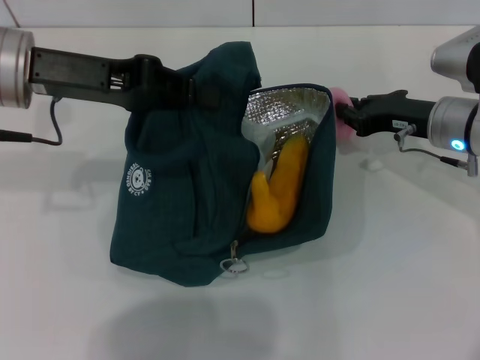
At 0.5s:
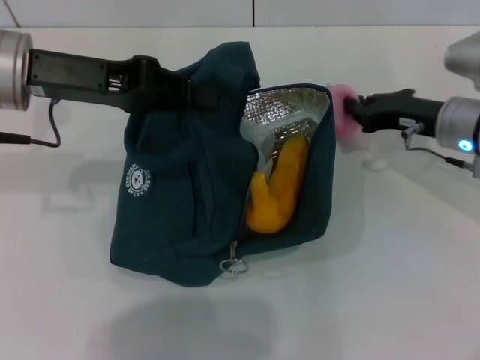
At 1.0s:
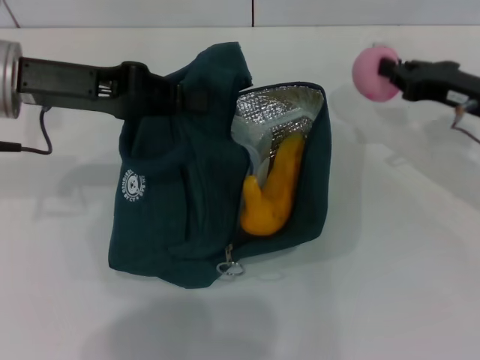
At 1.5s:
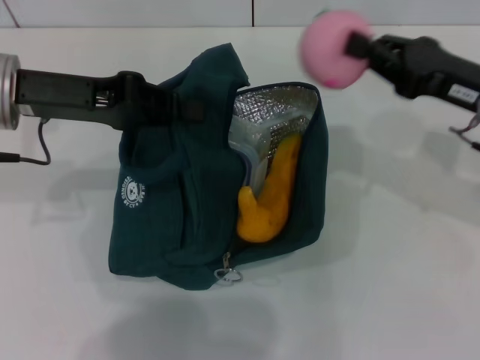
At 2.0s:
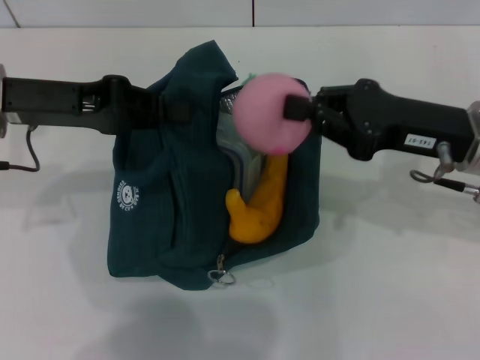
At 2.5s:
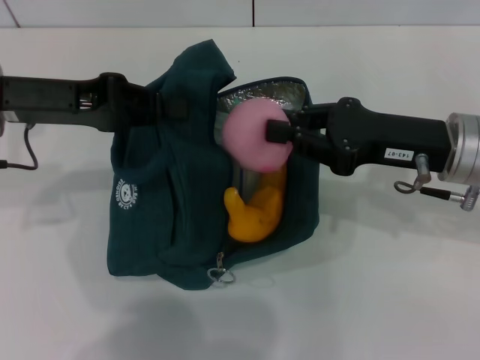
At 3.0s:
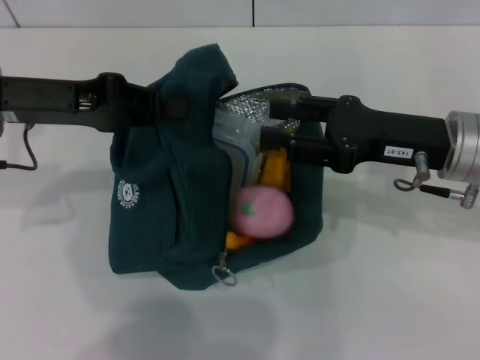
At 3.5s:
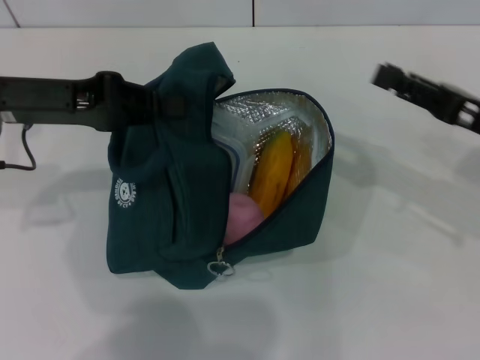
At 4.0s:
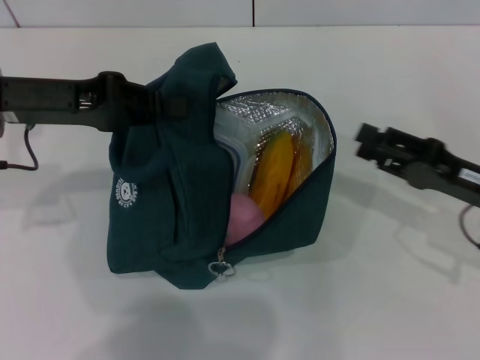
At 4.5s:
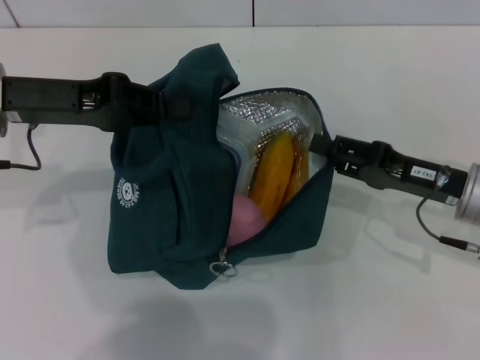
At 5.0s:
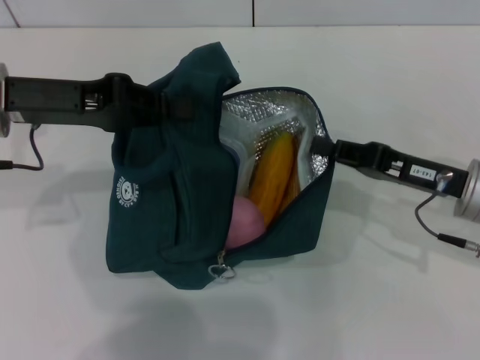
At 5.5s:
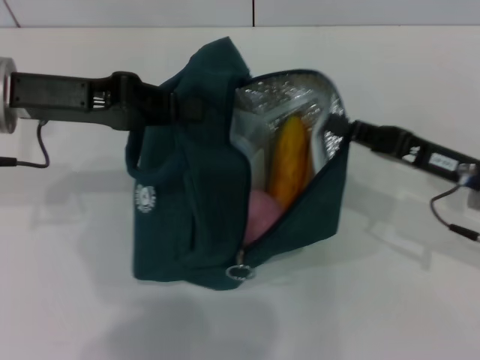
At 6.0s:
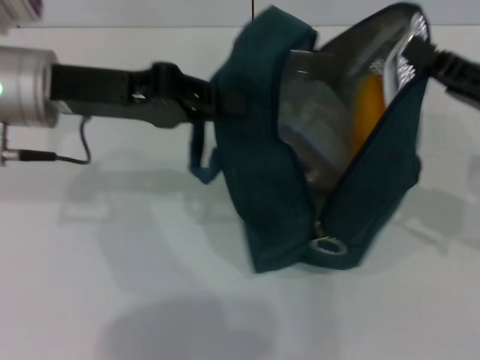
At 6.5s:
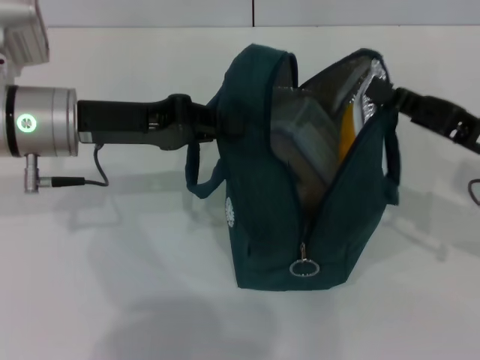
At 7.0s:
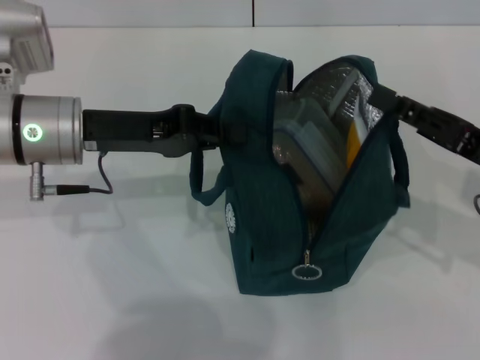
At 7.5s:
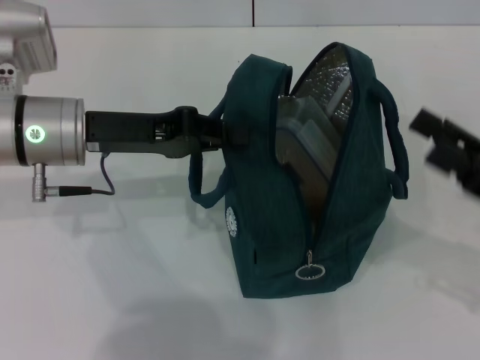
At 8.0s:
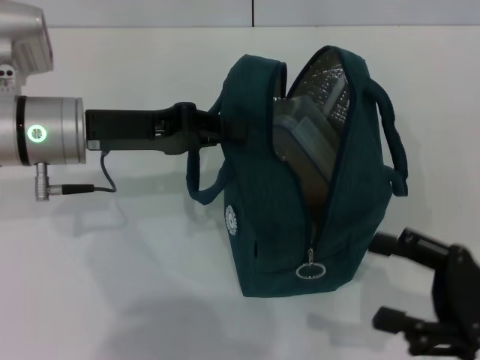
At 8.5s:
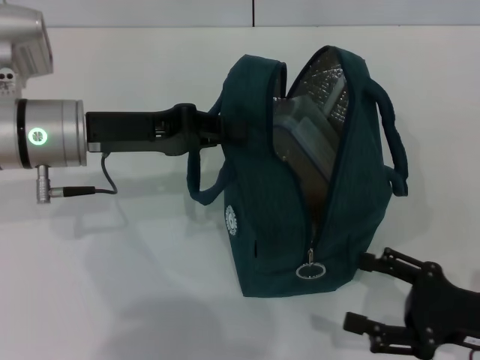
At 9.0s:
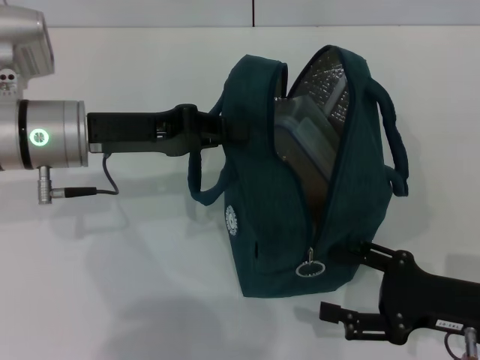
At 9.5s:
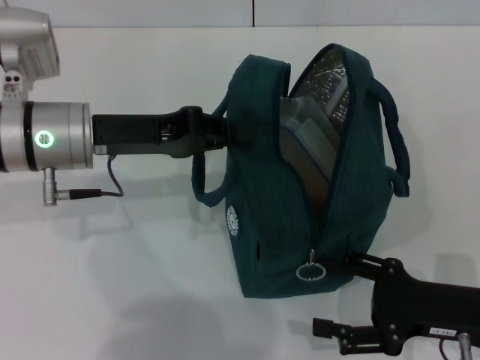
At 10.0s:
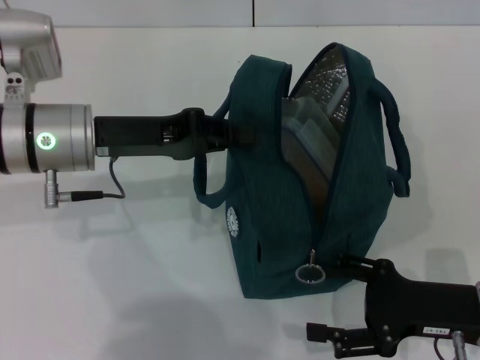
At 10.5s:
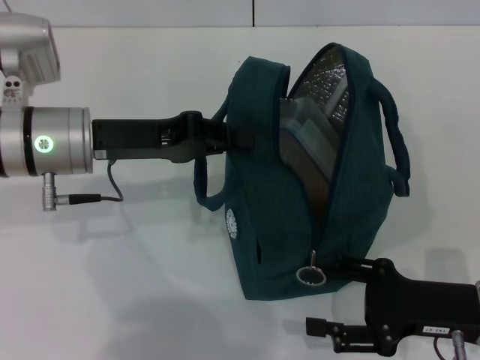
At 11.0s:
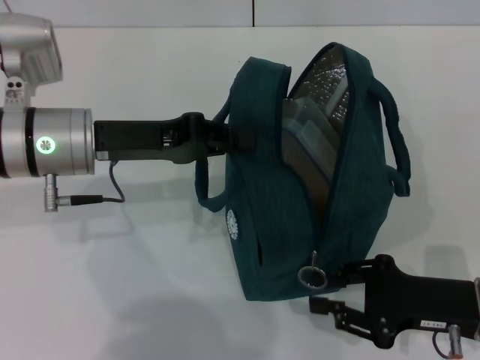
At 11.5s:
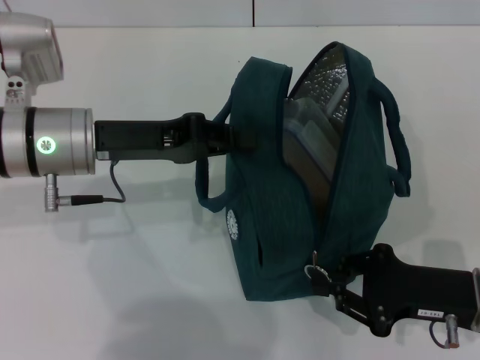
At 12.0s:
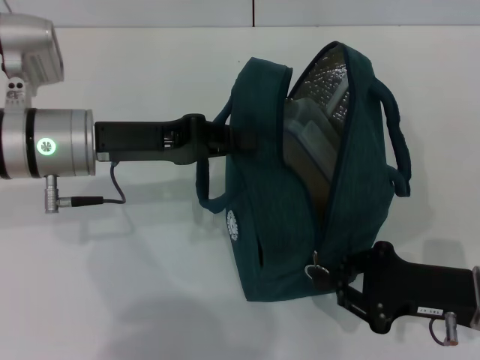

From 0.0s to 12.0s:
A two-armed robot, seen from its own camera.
Step, from 0.5s to 3.0s: Secure the lunch bag with your left hand.
Step, from 3.5s to 7.5s: Hold the lunch bag with your right hand.
From 0.0s to 2.0s: The right gripper heads backward and upward, covering about 10 cm.
From 2.0s to 4.0s: The right gripper shifts approximately 10 cm downward and to the right, and opens up.
From 4.0s to 6.0s: The right gripper heads upward, covering about 5 cm, and closes.
From 6.0s to 8.0s: The left gripper is displaced downward by some 5 cm, while the right gripper travels backward and downward by roughly 10 cm, and opens.
From 8.0s to 10.0s: The right gripper changes place by roughly 5 cm.
From 10.0s to 12.0s: The right gripper closes up.

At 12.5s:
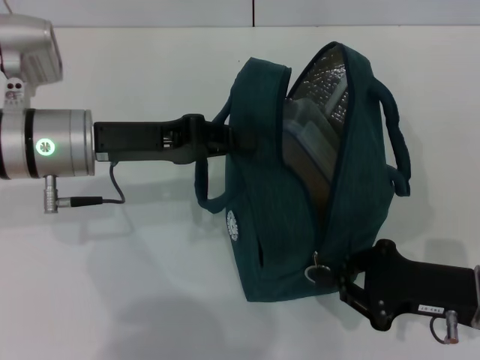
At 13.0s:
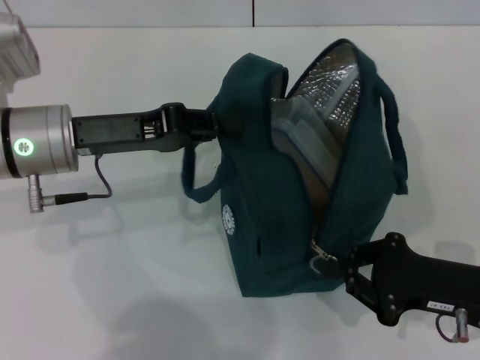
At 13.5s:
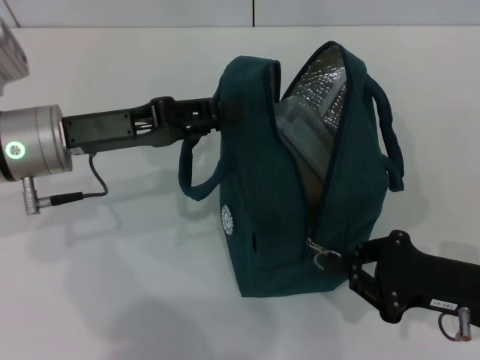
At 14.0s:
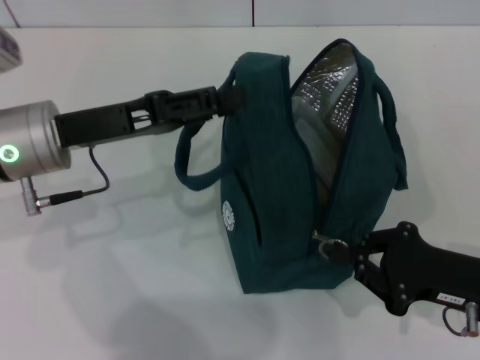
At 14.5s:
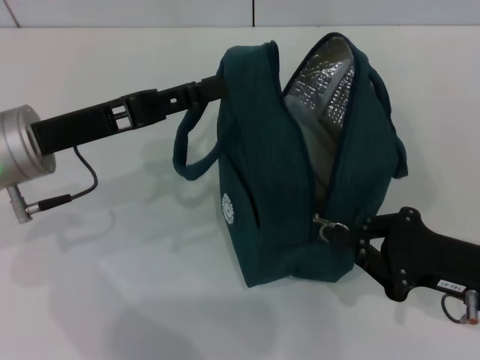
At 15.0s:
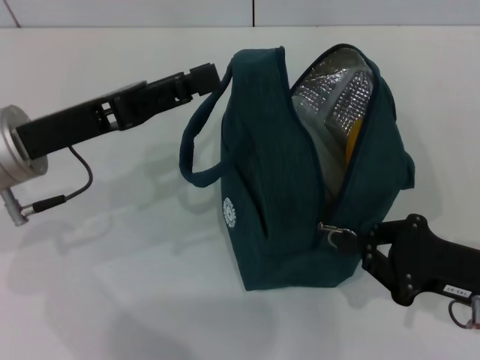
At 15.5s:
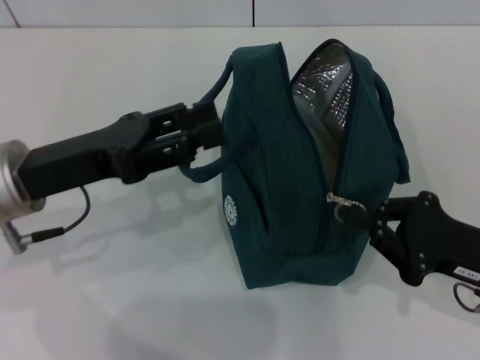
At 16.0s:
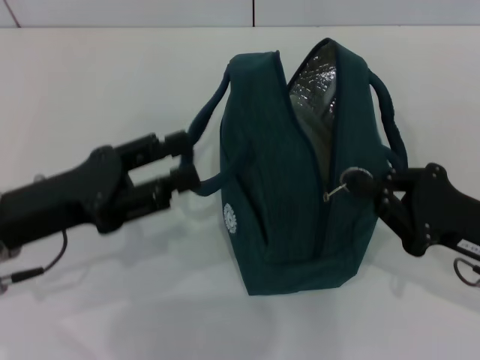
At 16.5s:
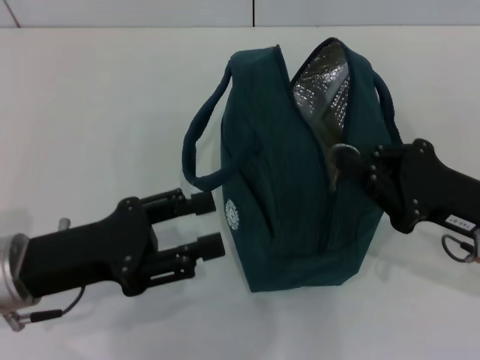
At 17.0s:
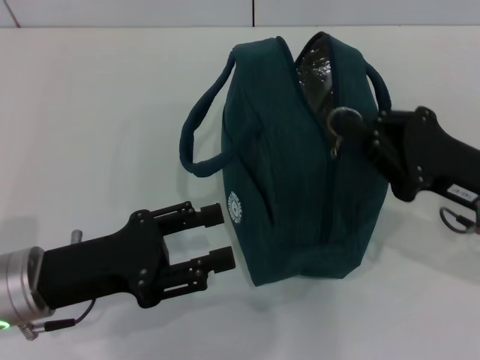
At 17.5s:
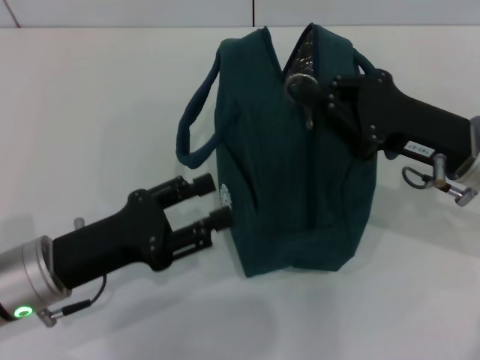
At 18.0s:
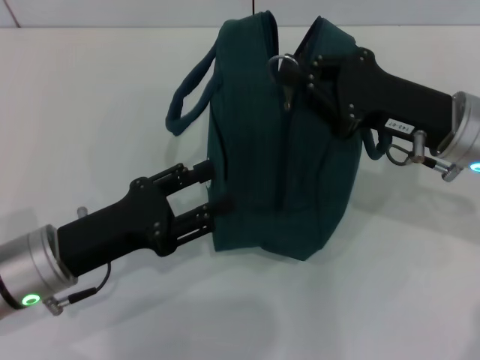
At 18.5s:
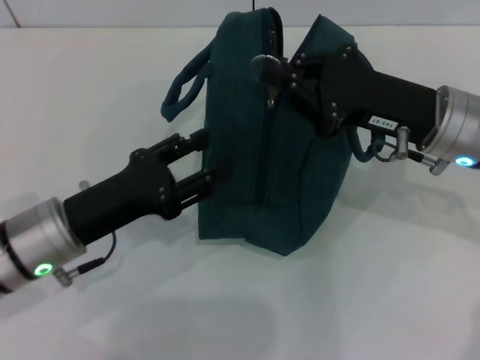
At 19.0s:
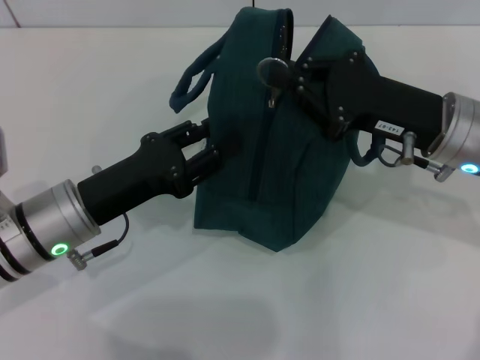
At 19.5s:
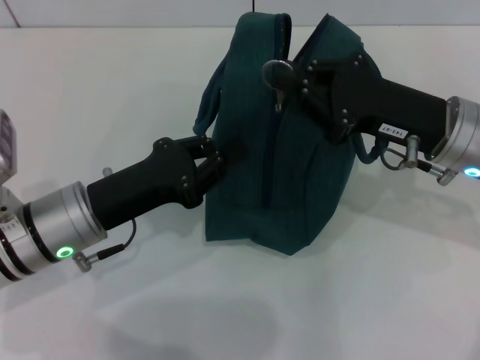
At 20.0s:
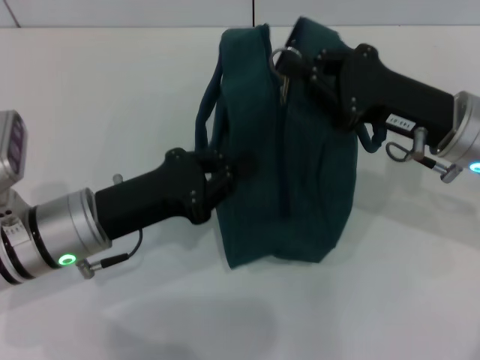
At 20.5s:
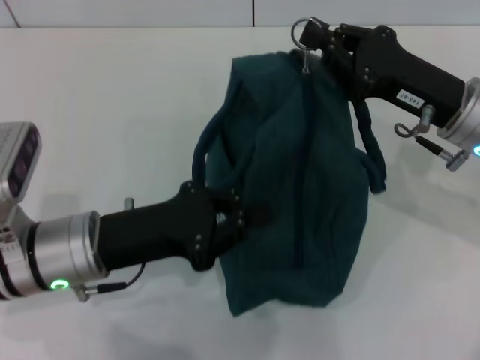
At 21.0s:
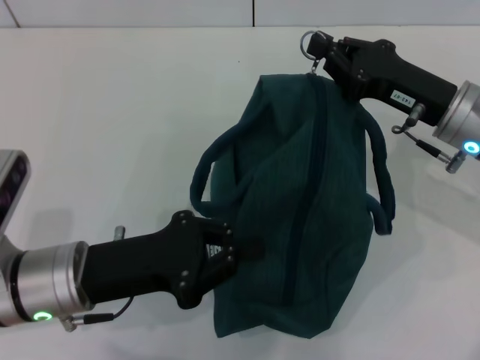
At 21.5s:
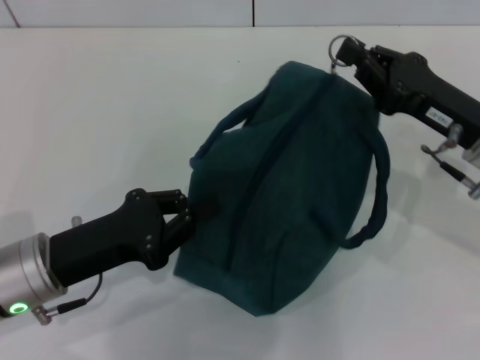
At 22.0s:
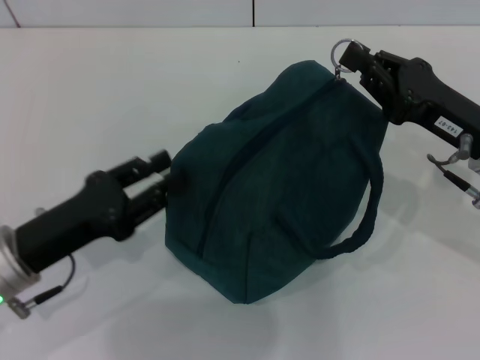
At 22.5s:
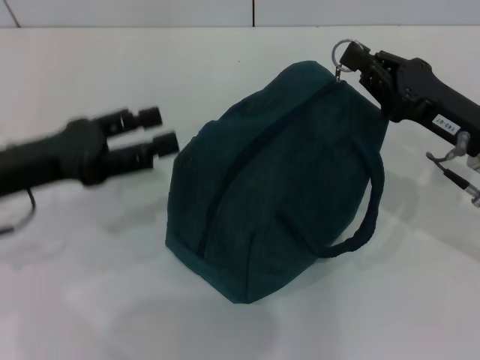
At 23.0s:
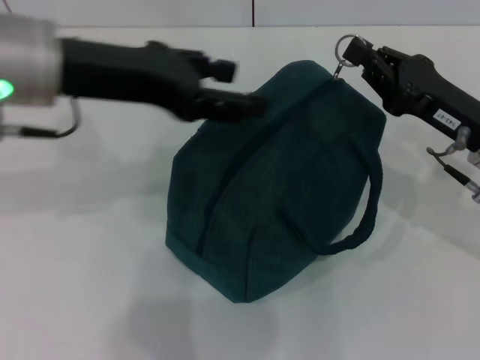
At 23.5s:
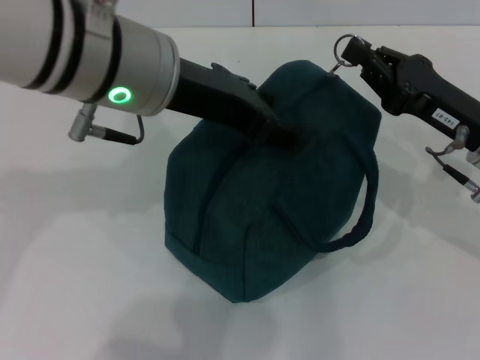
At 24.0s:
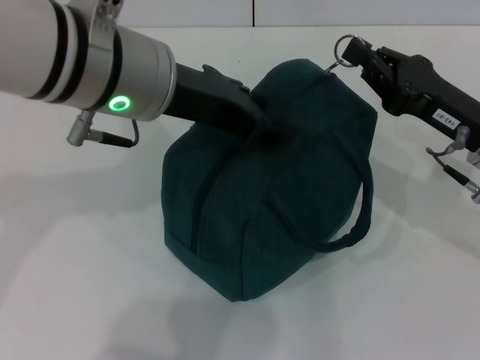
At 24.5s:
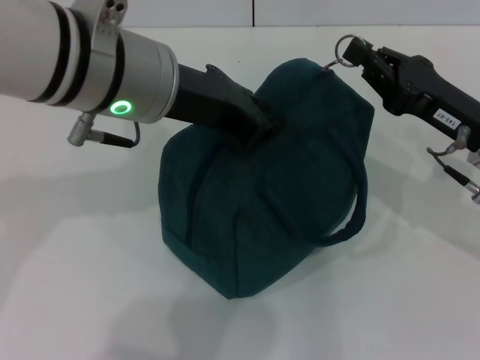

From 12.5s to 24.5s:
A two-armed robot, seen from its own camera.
From 12.5s to 14.5s: The left gripper opens.
From 14.5s to 16.5s: The left gripper goes approximately 10 cm backward.
From 16.5s to 18.5s: The right gripper is displaced forward, to the left and upward by roughly 10 cm.
From 18.5s to 20.5s: The left gripper closes its fingers.
From 20.5s to 22.5s: The left gripper travels to the left and upward by about 10 cm, and opens.
From 22.5s to 24.5s: The left gripper moves to the right and upward, roughly 20 cm, and closes.

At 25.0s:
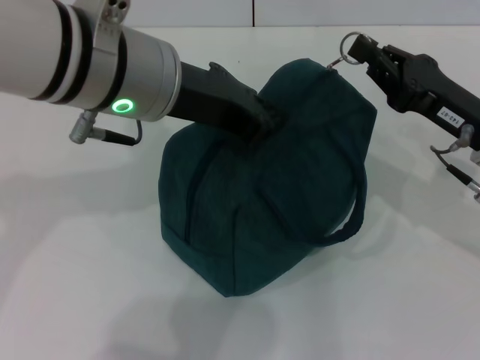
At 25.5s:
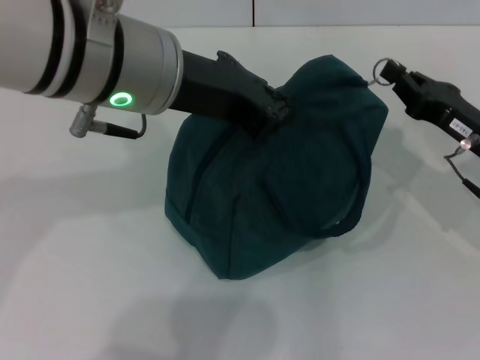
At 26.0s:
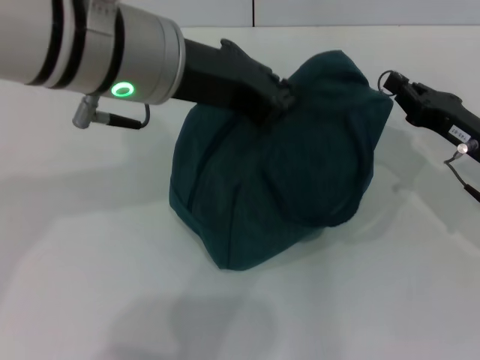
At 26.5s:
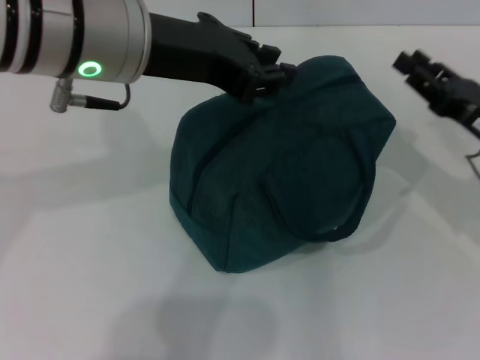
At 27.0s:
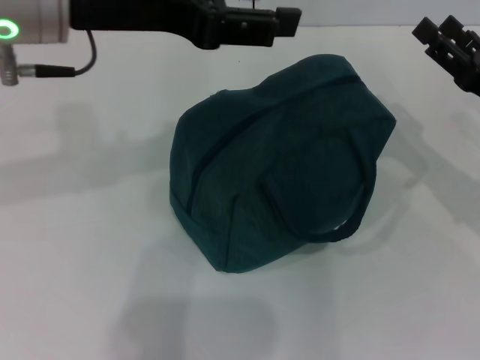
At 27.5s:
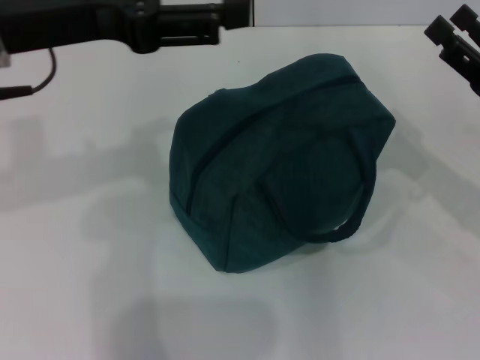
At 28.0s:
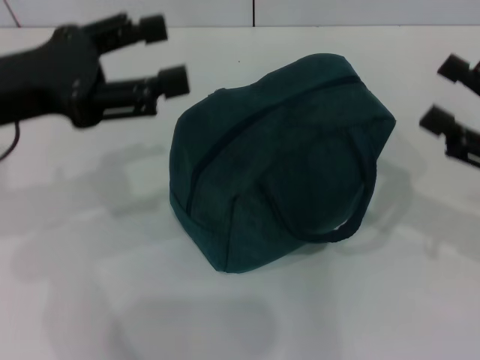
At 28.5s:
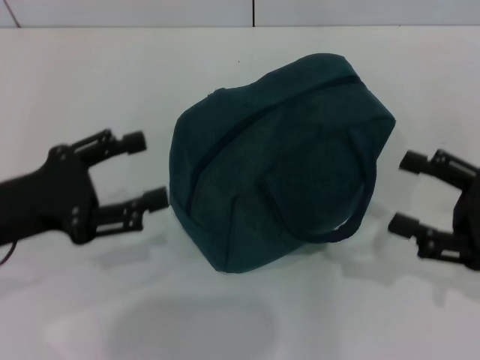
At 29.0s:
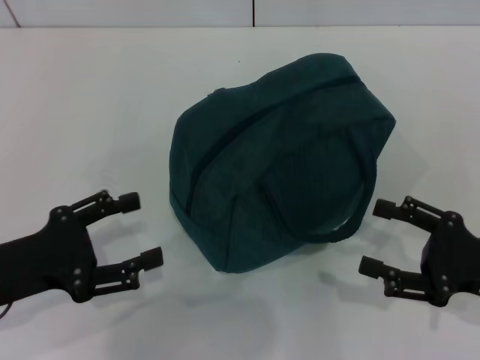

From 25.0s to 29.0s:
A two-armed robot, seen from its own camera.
From 25.0s to 27.0s: The right gripper opens. The left gripper is displaced to the left by some 5 cm, and opens its fingers.
From 27.0s to 29.0s: The left gripper heads downward, backward and to the left, covering some 25 cm, and opens up; the right gripper shifts roughly 10 cm backward.
